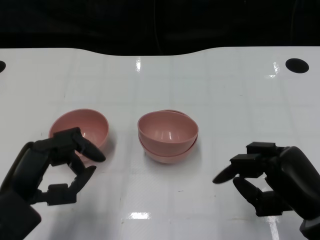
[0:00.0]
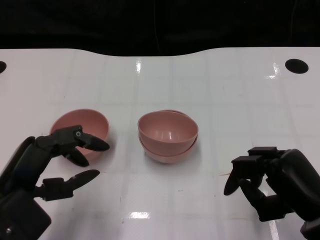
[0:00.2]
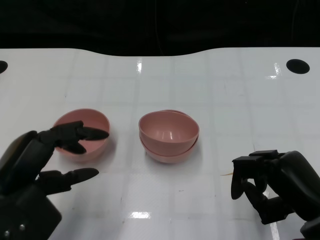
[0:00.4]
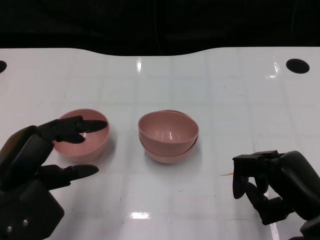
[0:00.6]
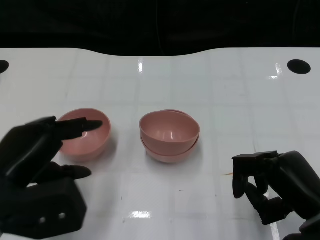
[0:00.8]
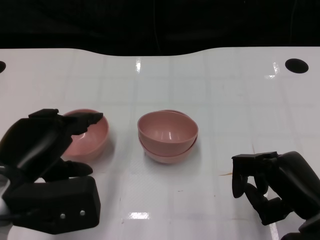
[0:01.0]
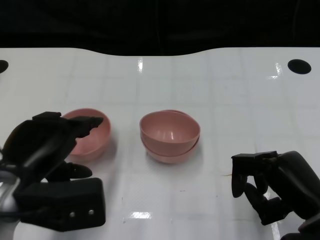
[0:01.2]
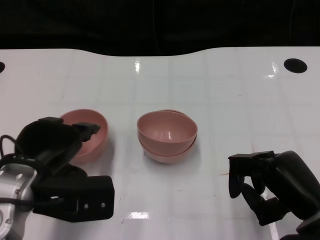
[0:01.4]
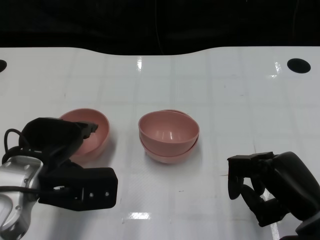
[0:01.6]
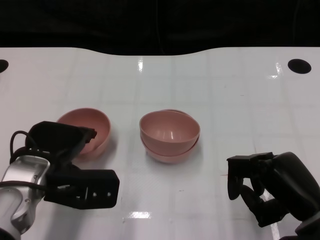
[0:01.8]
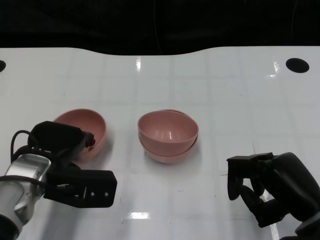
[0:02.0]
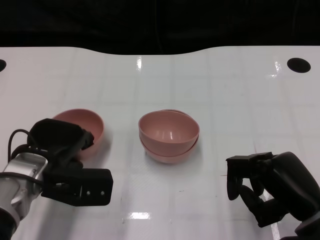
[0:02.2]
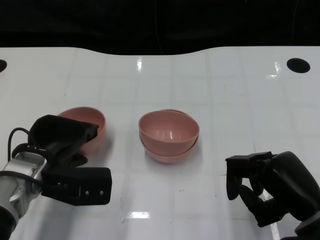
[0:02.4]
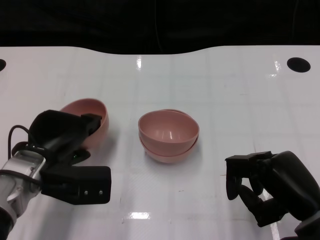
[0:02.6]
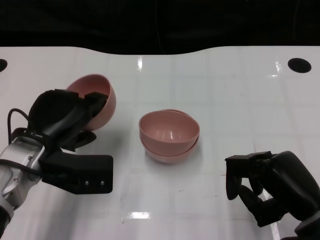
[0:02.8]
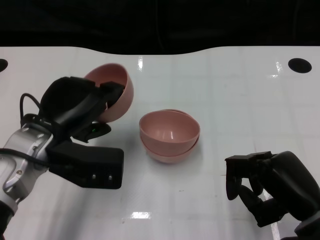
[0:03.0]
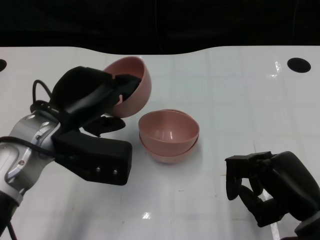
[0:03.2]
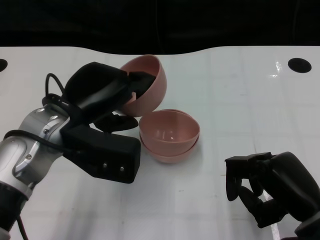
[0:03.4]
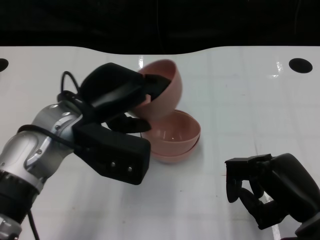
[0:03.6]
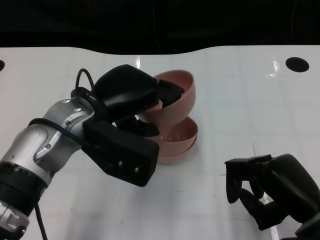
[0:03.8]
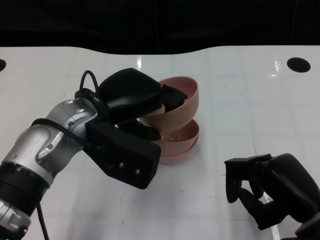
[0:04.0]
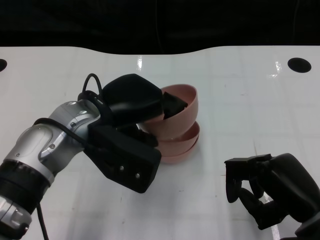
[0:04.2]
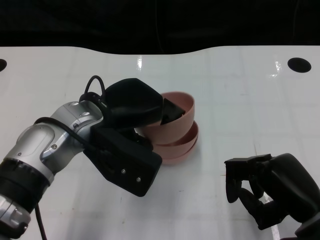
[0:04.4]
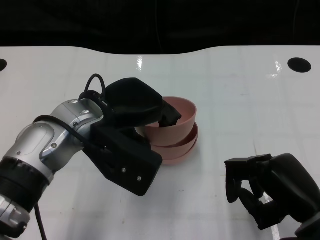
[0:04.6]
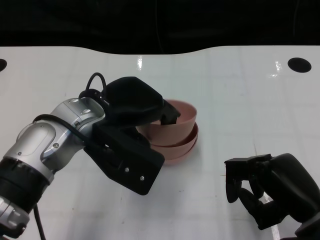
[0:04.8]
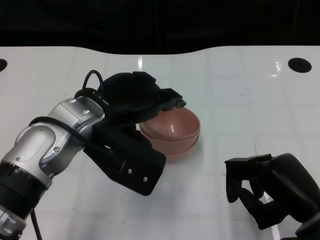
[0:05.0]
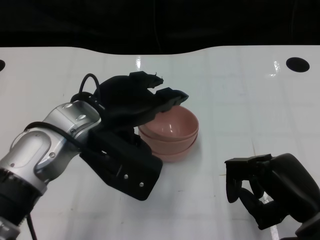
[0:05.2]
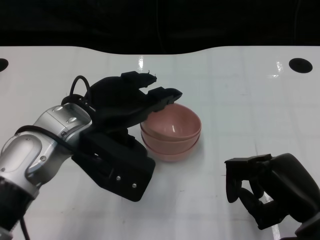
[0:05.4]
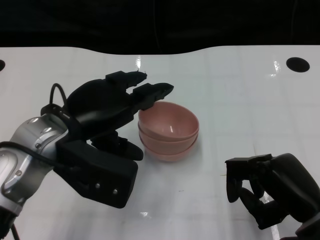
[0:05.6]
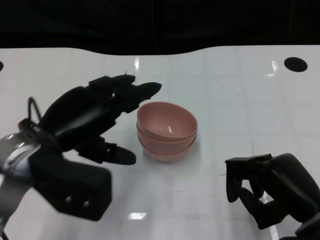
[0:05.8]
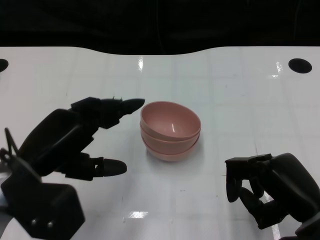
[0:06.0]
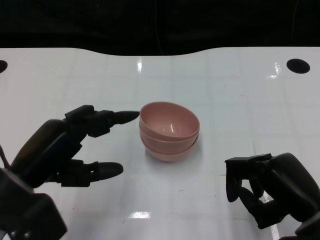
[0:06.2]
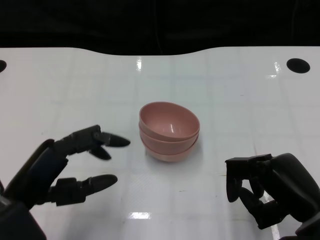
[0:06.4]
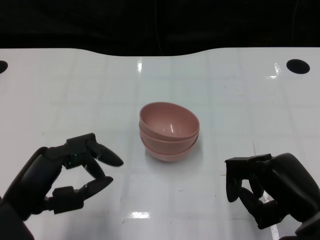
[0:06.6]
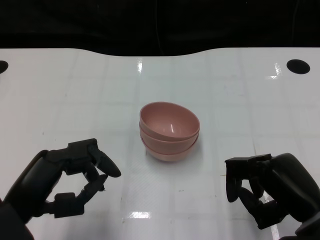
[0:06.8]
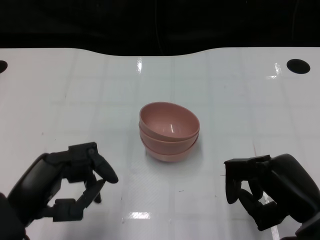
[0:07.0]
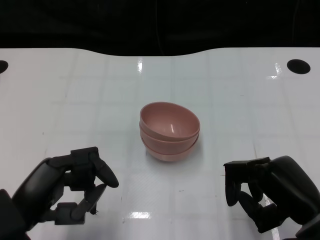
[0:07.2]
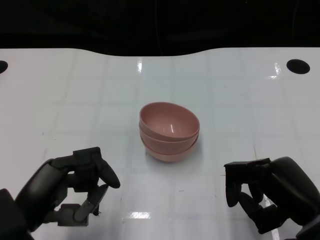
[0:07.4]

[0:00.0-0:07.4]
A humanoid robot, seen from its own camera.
Task of the whole recording: Pick up the bowl on one side of the table and place it on top of the middle bowl, then pick up the bowl on the other side of the table and place it on top of the middle bowls.
Step, 0:00.0 to 0:02.6: Grasp the bowl on the left with the left gripper.
Step, 0:02.8 to 0:05.6: Place the bowl on the left onto the bowl in the middle with left gripper.
0:00.0 to 0:01.4: The left hand shifts by about 5 cm.
0:01.4 to 0:03.0: The left hand is displaced forward by about 5 cm.
0:03.0 to 0:04.4: The left hand heads to the right, covering some 5 cm.
0:04.4 to 0:06.0: The left hand is displaced to the left and backward by approximately 10 cm.
0:06.0 to 0:07.4: The left hand is displaced backward by some 5 cm.

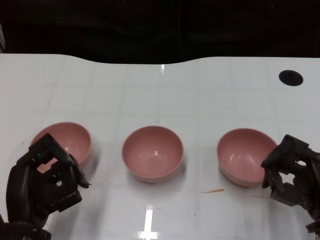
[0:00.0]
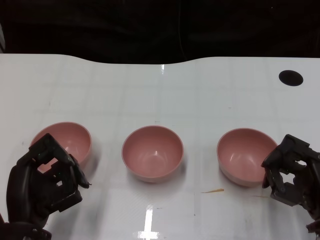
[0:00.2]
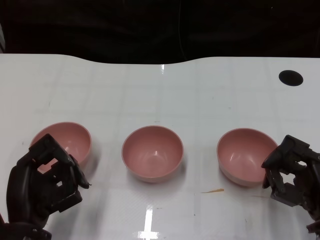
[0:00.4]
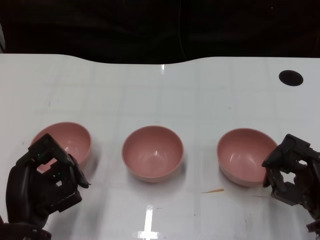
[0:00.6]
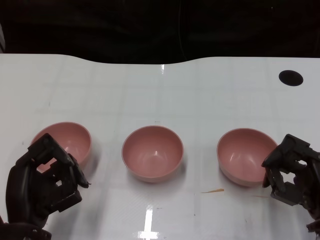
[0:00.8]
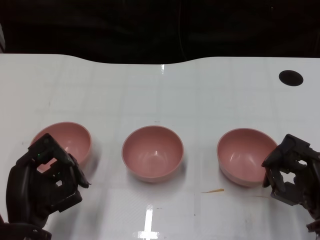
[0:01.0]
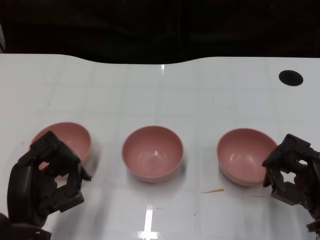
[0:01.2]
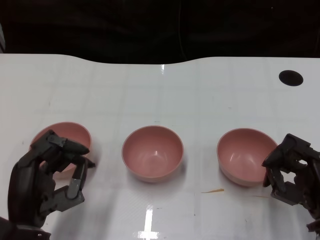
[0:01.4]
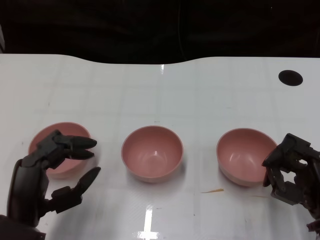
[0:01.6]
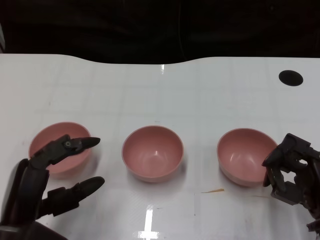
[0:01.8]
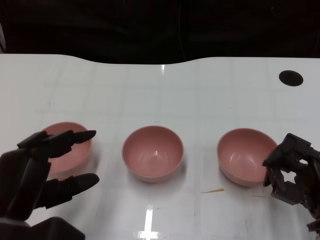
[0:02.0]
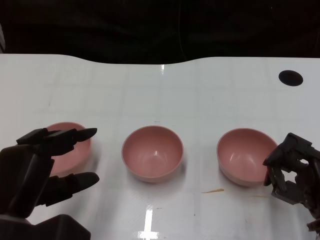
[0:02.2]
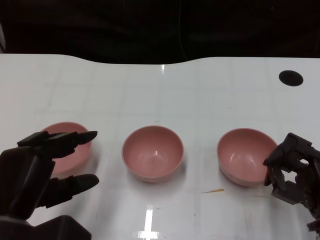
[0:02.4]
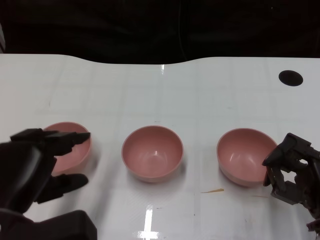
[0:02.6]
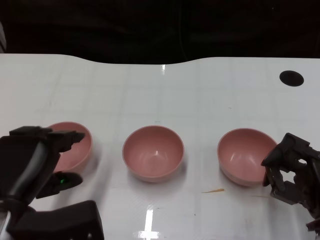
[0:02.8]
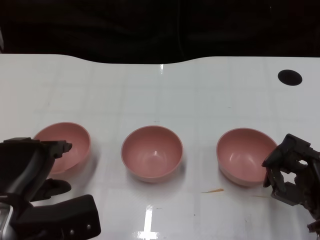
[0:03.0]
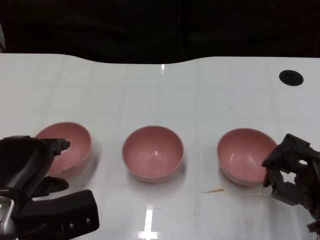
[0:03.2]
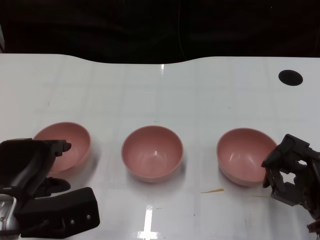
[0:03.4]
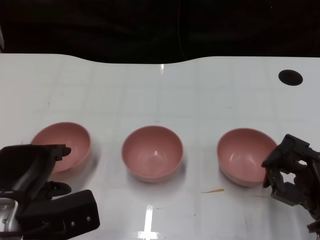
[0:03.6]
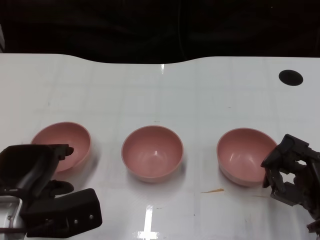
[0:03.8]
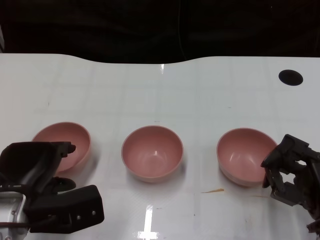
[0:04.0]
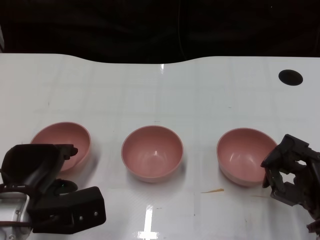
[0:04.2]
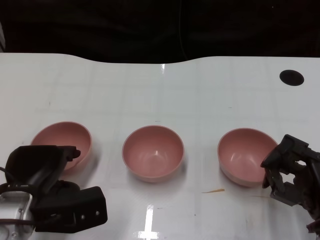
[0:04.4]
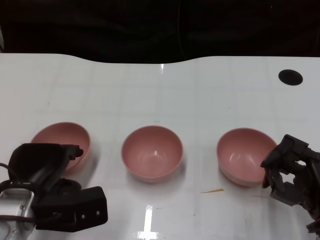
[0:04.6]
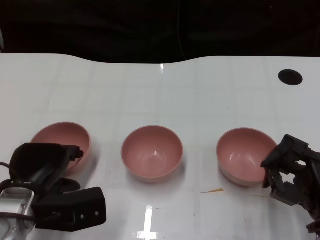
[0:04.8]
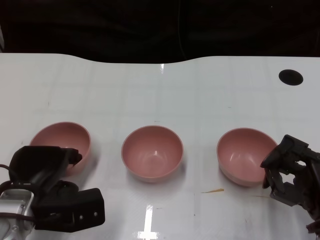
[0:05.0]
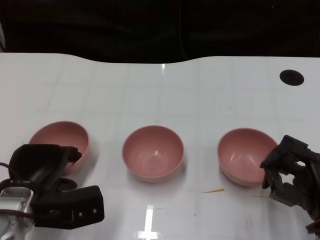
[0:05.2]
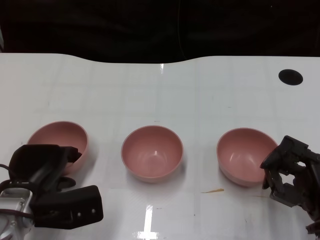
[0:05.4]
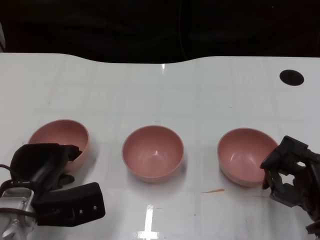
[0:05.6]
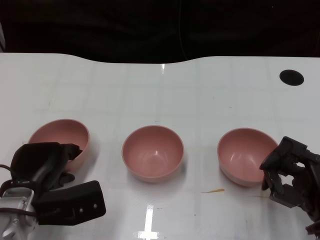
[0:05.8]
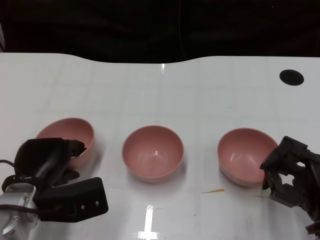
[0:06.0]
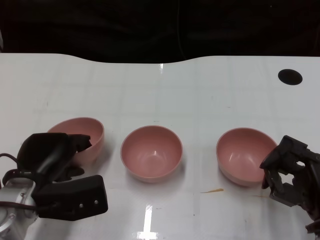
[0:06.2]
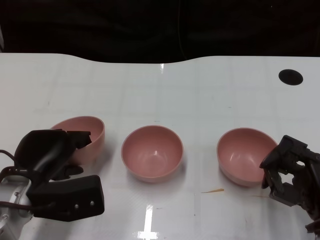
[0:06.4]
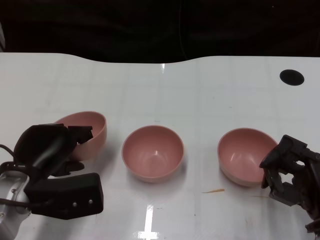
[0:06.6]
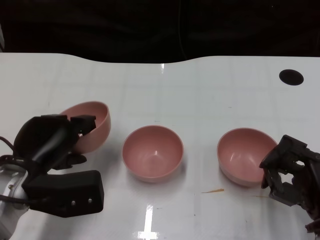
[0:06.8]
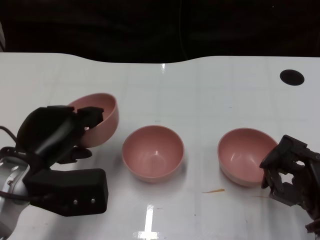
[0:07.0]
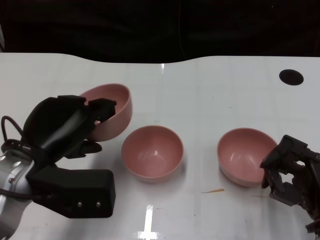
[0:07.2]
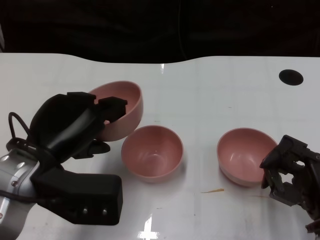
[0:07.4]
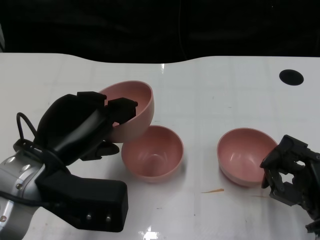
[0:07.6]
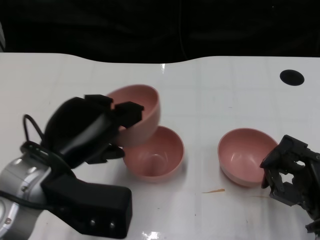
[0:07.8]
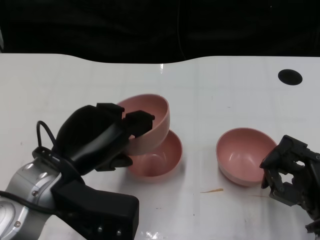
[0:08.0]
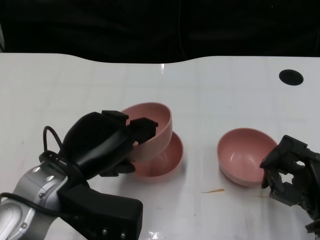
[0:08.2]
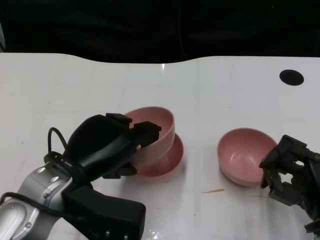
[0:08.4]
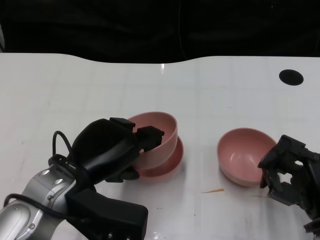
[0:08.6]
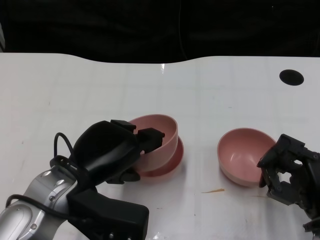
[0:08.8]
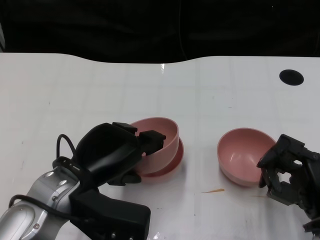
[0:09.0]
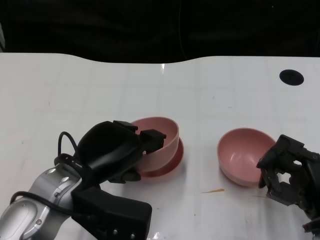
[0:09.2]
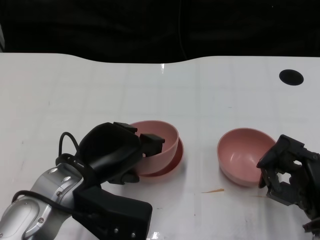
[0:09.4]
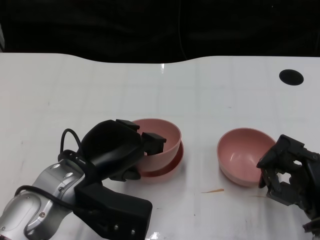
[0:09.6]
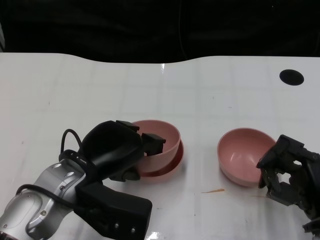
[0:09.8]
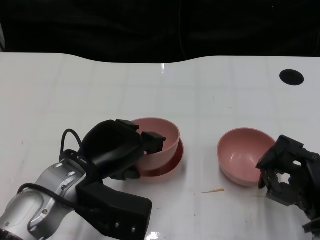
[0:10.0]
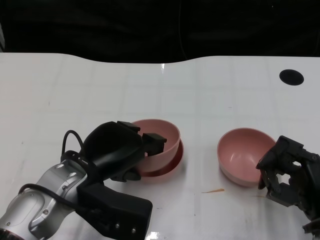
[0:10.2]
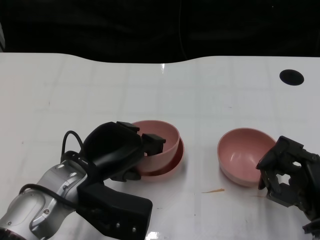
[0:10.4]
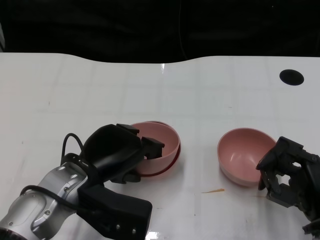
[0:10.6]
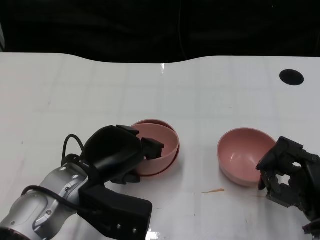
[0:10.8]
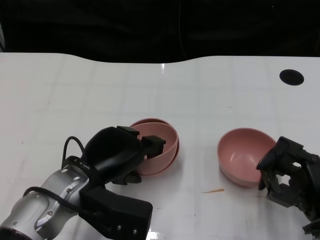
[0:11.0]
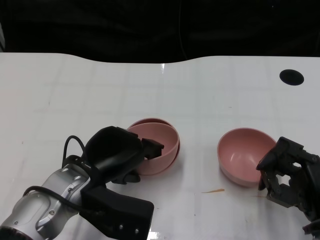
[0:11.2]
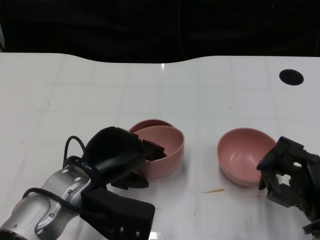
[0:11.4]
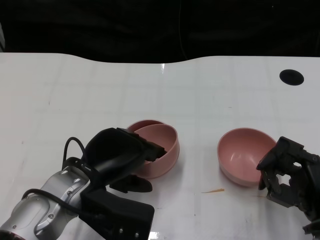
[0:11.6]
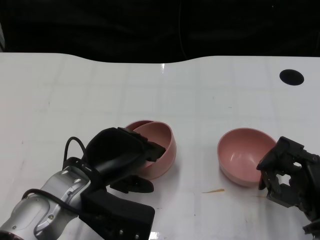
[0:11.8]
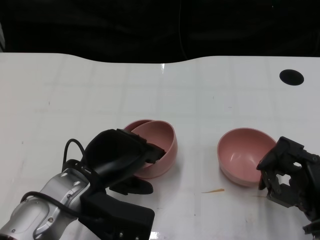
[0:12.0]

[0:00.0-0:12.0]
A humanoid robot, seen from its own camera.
Task of the whole recording: Pick up the bowl on one side of the table and place it on top of the middle bowl, then pick up the bowl on the other side of the table and place it on top of the middle bowls.
Step, 0:00.8 to 0:06.2: Grasp the bowl on the left with the left gripper.
0:01.6 to 0:03.0: The left hand changes place by roughly 5 cm.
0:03.0 to 0:04.4: The left hand ends up roughly 5 cm from where it was.
0:04.4 to 0:06.0: There are only small adjustments of the hands.
0:06.0 to 0:07.6: The left hand travels upward by approximately 10 cm.
0:09.0 to 0:12.0: The hands move only a little.

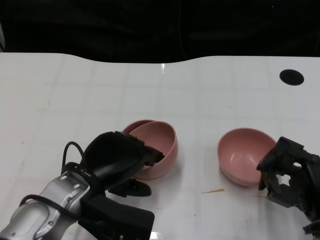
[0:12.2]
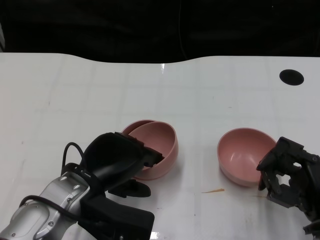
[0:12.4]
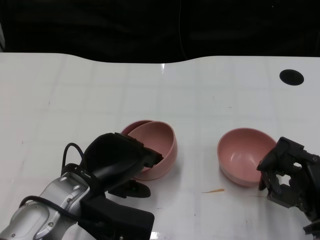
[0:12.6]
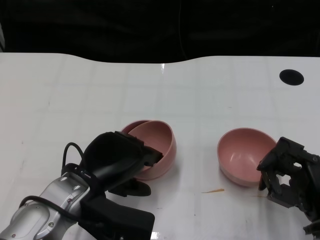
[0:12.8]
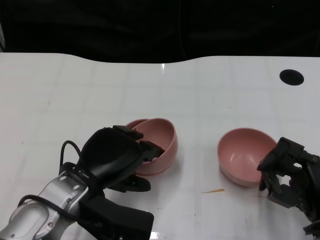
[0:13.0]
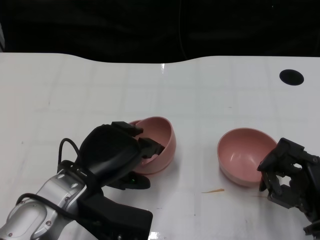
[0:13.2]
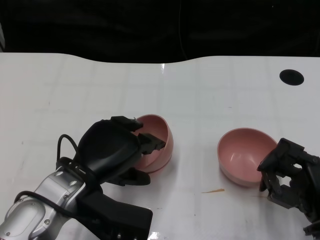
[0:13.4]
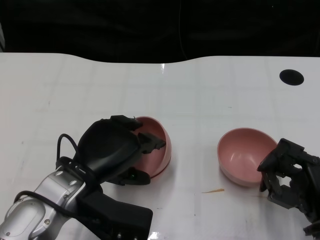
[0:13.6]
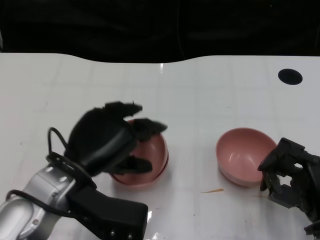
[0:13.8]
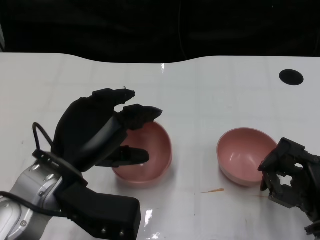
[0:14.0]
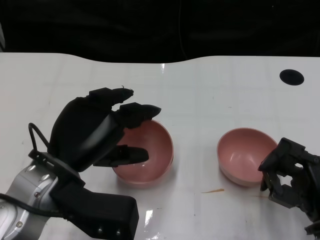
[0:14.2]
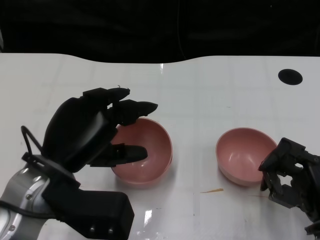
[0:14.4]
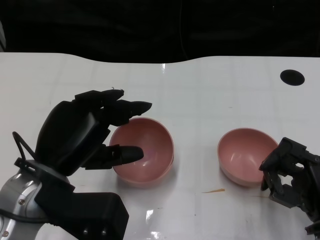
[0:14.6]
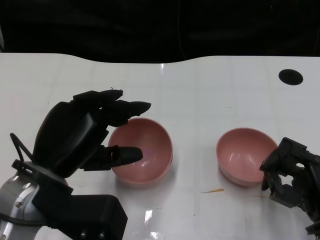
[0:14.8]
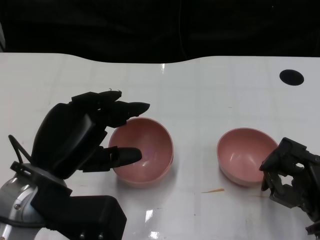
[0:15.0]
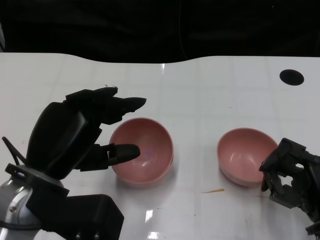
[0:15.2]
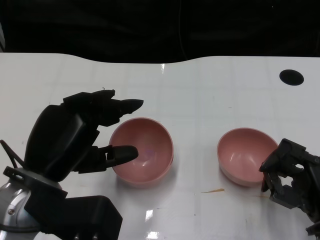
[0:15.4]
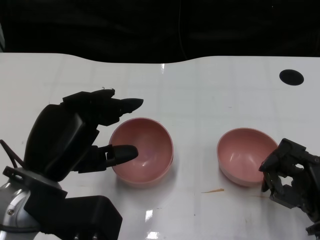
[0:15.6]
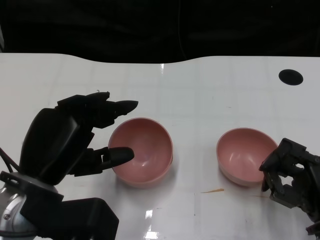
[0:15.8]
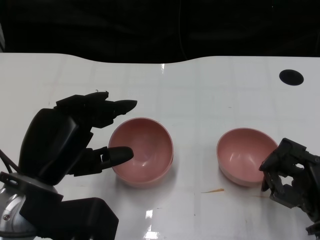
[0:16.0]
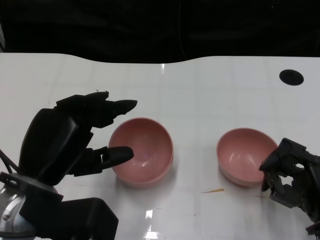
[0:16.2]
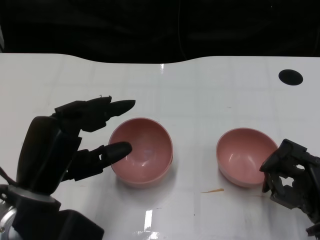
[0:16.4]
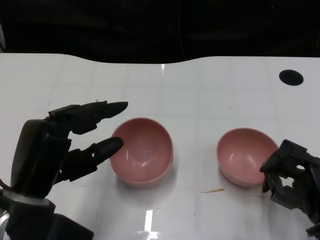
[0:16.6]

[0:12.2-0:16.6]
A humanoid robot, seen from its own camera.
Task of the whole recording: Pick up the bowl on one side of the table and place it on top of the middle bowl, then pick up the bowl on the other side of the table and place it on top of the middle bowls.
0:12.2 to 0:13.6: There are only small adjustments of the hands.
0:13.6 to 0:15.2: The left hand changes place by approximately 5 cm.
